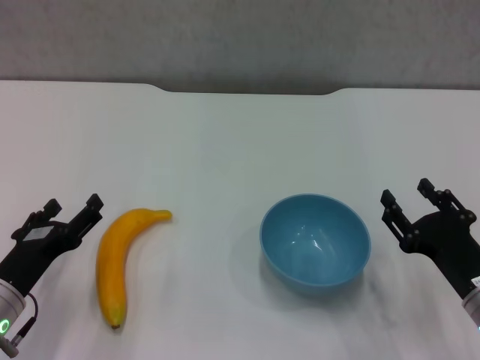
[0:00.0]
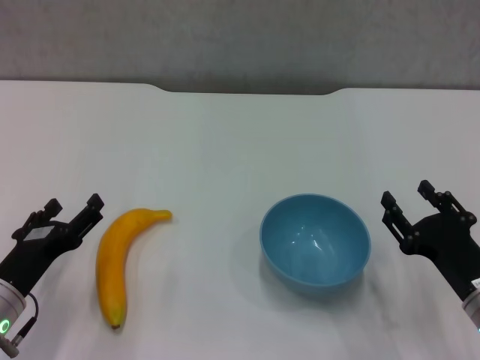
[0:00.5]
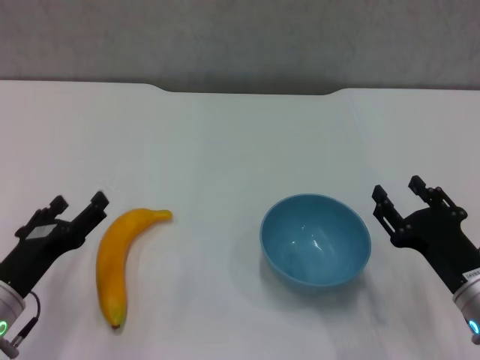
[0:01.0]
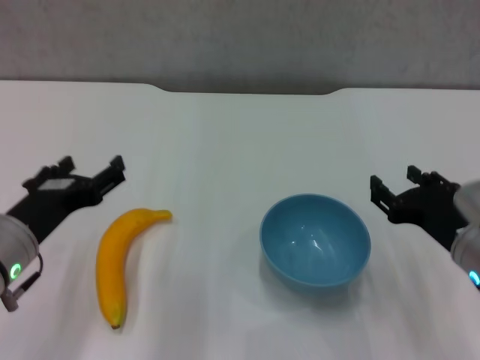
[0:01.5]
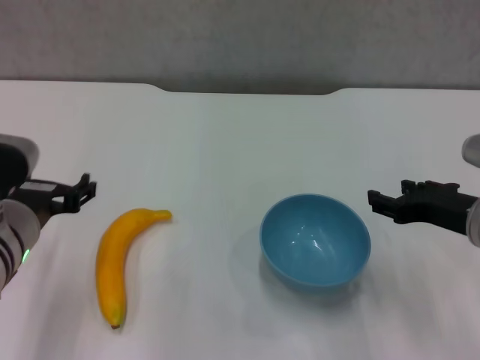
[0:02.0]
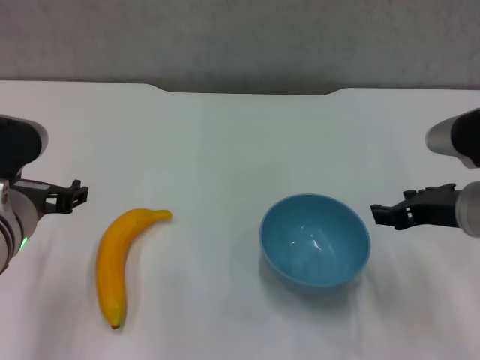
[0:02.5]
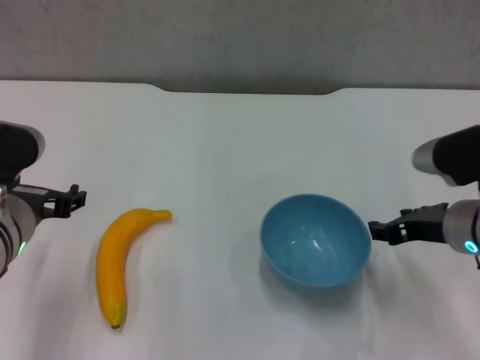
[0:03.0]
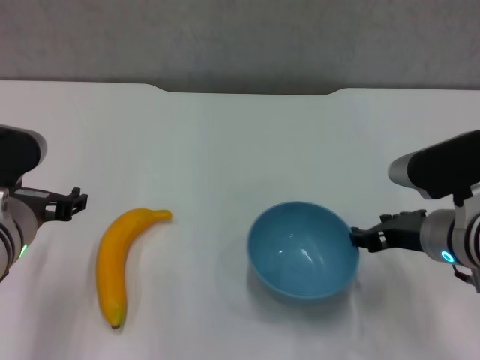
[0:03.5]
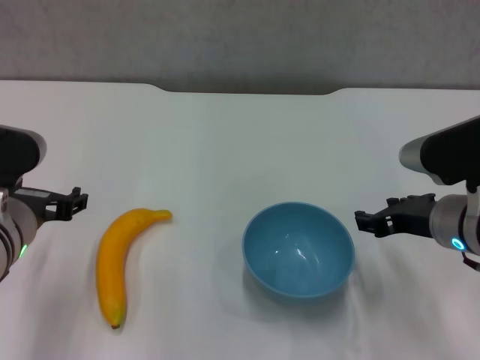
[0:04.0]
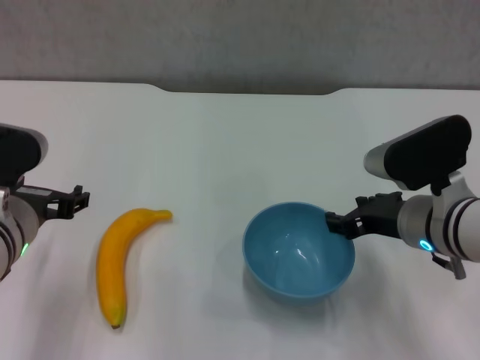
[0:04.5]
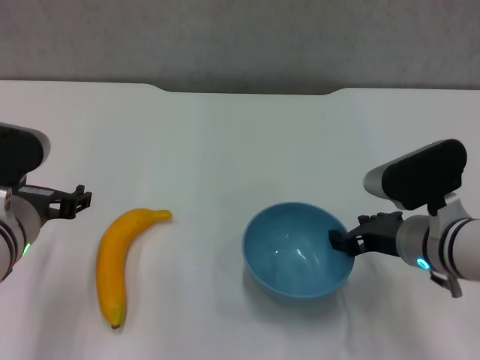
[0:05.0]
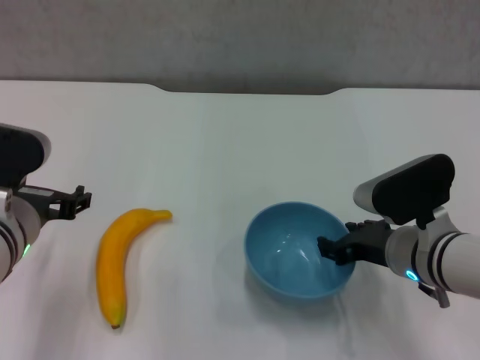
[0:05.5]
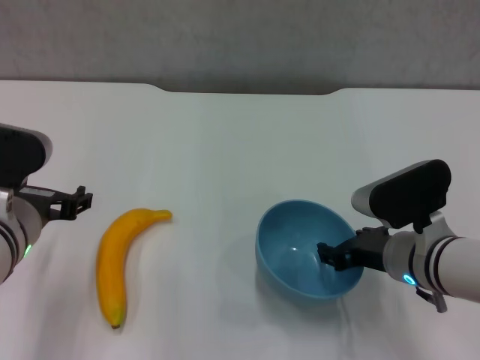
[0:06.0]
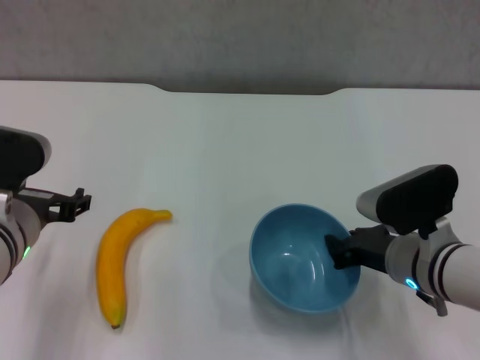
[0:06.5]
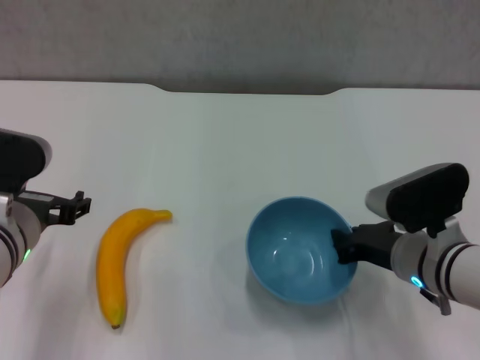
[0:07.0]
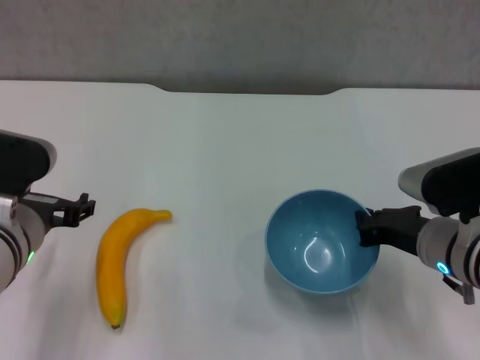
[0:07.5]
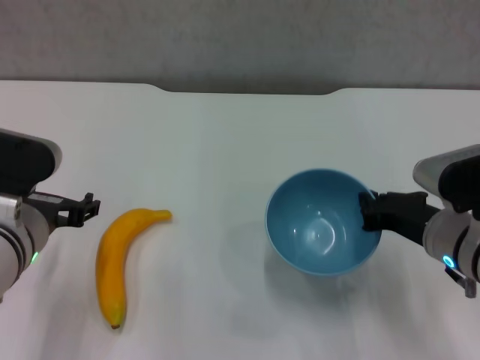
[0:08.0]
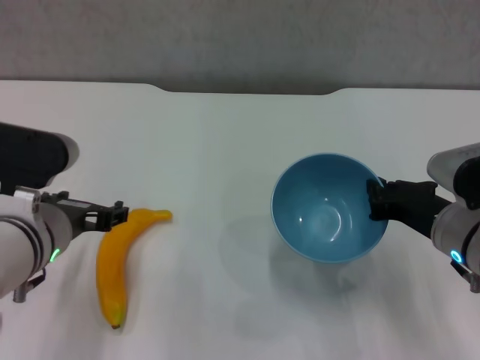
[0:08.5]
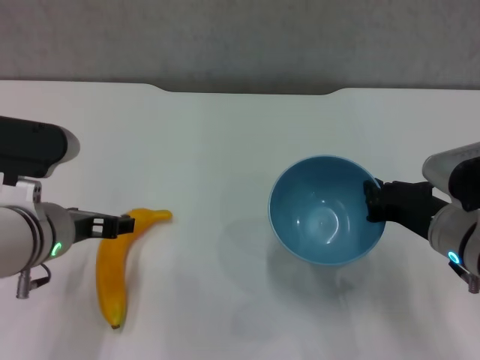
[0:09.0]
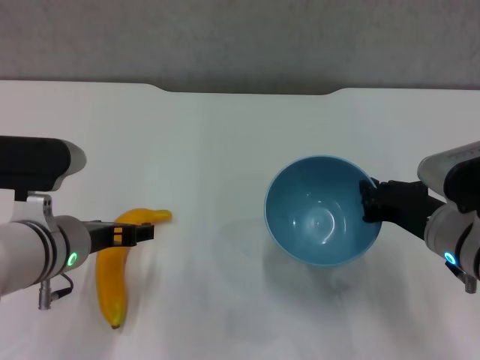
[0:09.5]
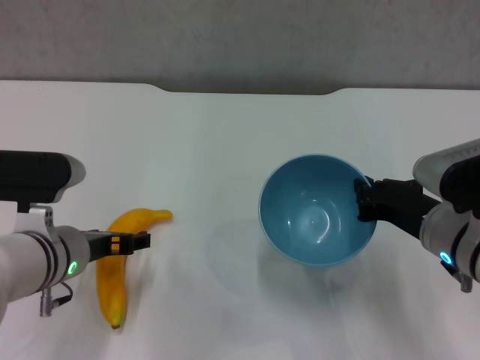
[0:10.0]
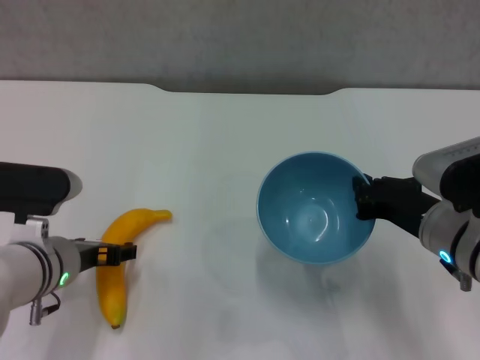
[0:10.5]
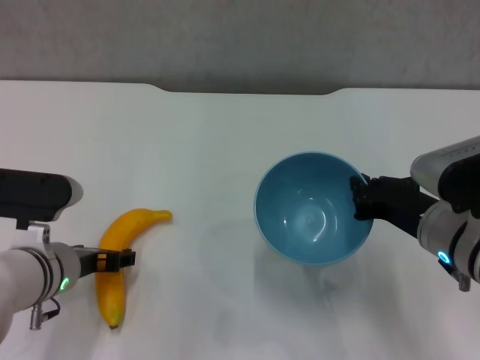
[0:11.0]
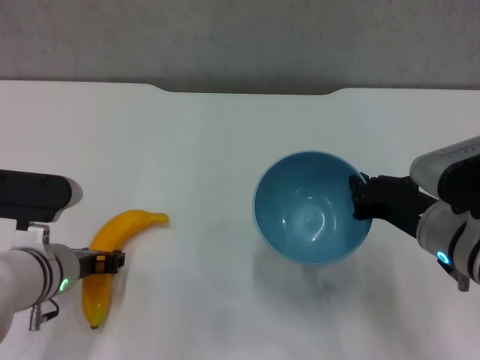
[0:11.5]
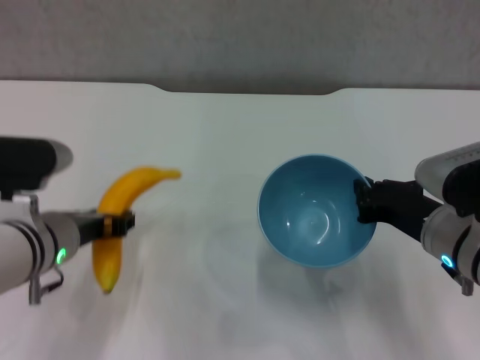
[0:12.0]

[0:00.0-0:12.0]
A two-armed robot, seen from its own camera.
Step, 0:00.0 to 0:07.0: Grasp the blue bowl with right gripper.
Step, 0:07.5 to 0:08.0: Lift the blue bowl with right gripper.
Step, 0:08.5 to 0:11.5: Grasp the banana with left gripper.
0:00.0 to 0:02.0: The right gripper is displaced upward and forward by roughly 10 cm. The left gripper travels upward and to the right by about 10 cm.
0:02.0 to 0:04.0: The grippers make only small movements.
0:04.0 to 0:06.0: The right gripper moves downward, roughly 5 cm.
0:06.0 to 0:08.0: The right gripper closes.
0:10.0 to 0:12.0: The left gripper closes up.

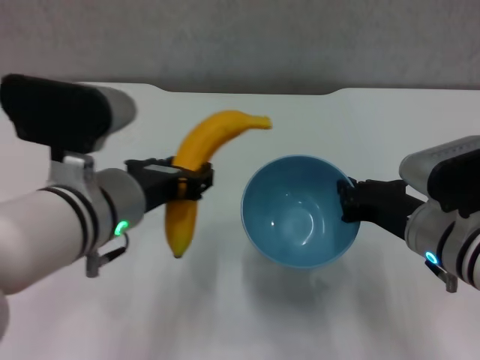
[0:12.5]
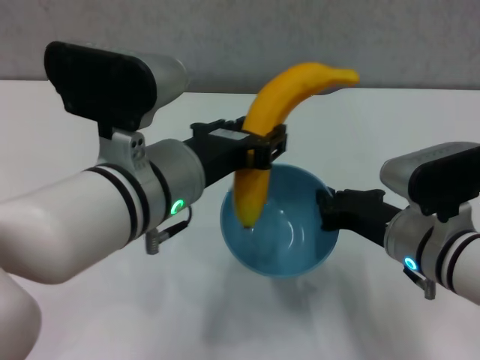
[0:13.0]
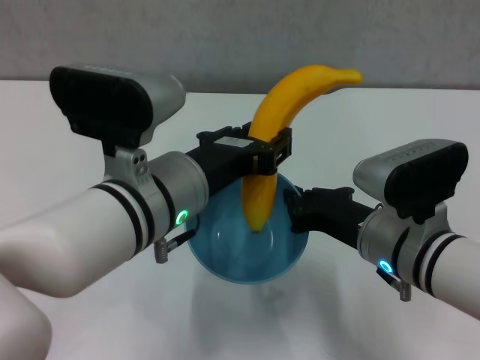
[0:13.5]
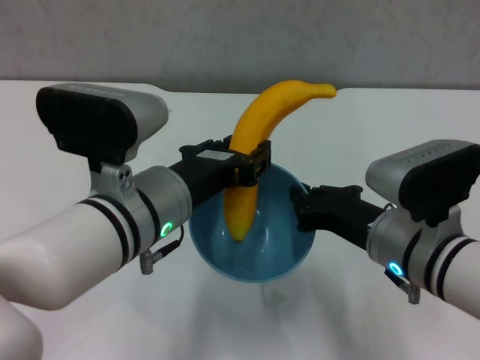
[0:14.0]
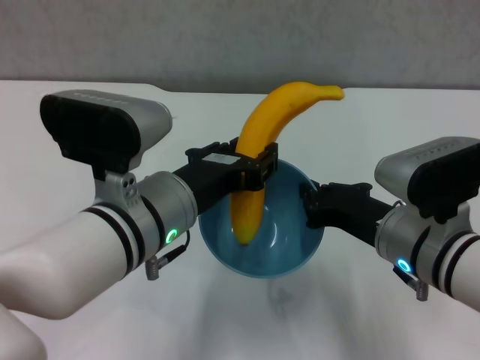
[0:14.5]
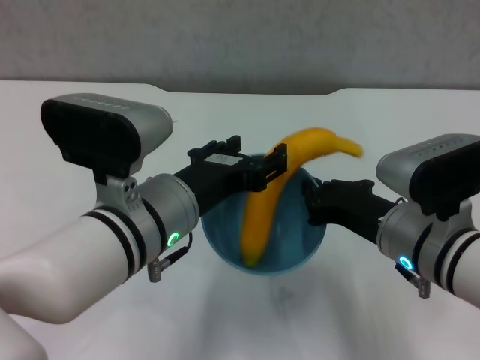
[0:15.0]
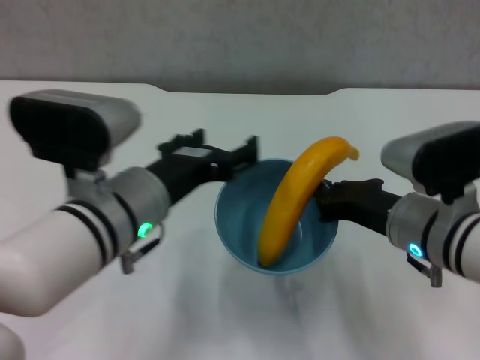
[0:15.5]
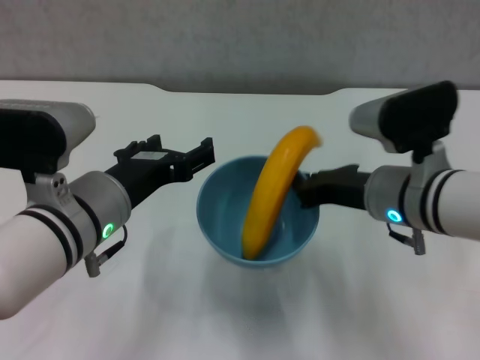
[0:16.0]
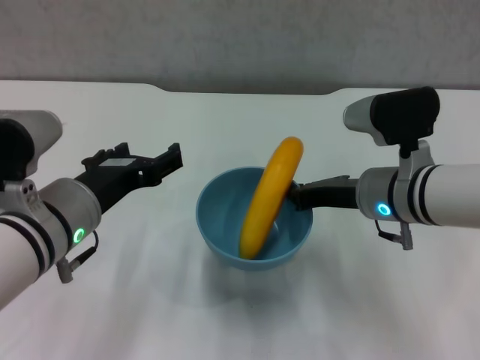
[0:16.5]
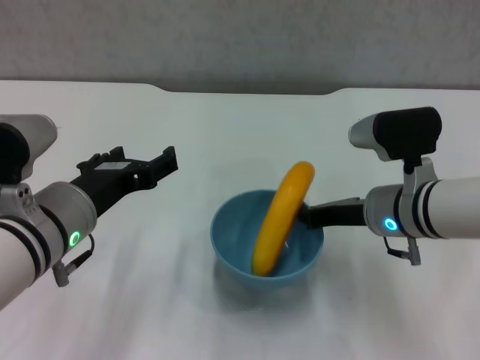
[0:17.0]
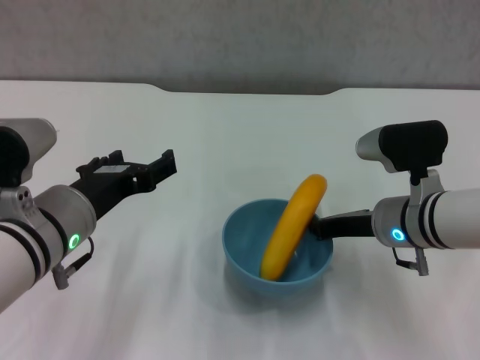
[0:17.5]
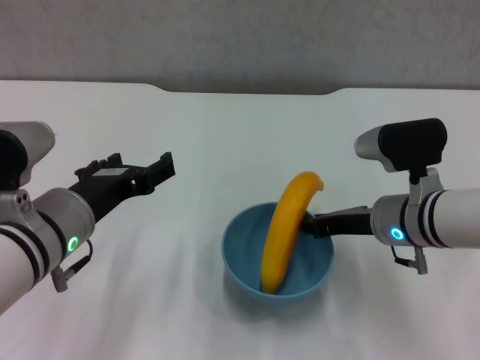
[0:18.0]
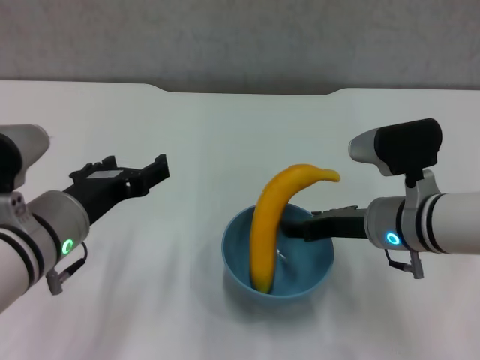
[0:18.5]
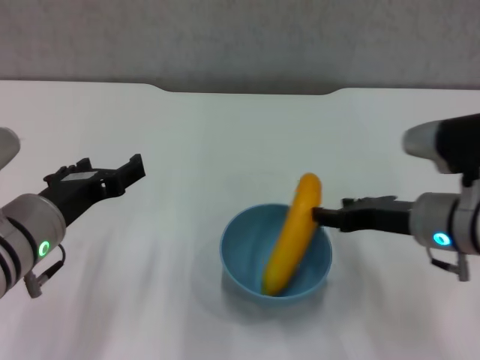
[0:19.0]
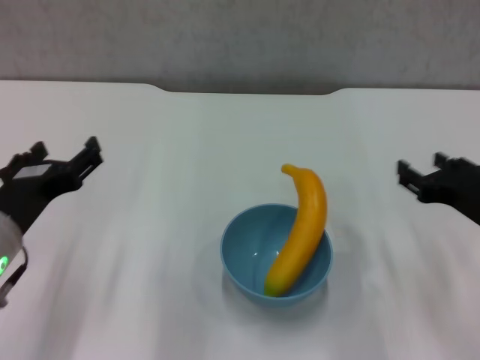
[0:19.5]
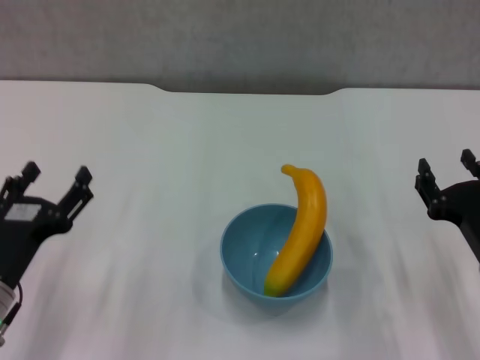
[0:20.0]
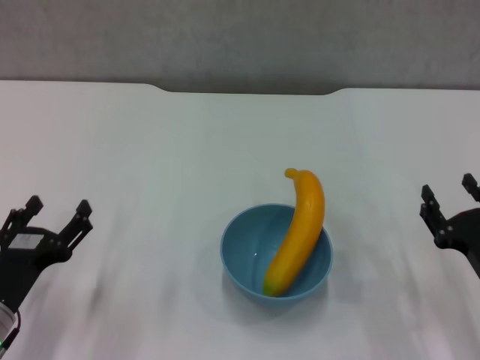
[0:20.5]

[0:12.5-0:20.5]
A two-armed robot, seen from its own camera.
Step, 0:12.5 to 0:15.0: Place the banana in the blue bowl with left gripper.
Step, 0:15.5 to 0:19.0: Place the bowl on the table with right gripper.
0:14.5 to 0:16.5: The right gripper heads forward, covering approximately 10 cm, while the left gripper travels to the left by about 10 cm, and opens its fingers.
0:16.5 to 0:18.5: The right gripper opens its fingers.
0:18.5 to 0:20.5: The left gripper moves downward, to the left and backward, roughly 15 cm, while the right gripper is displaced backward, to the right and downward by about 15 cm.
